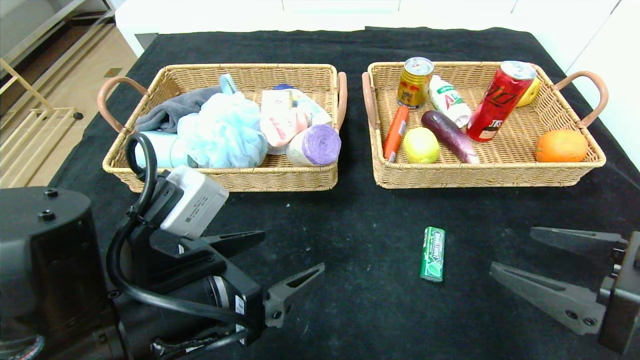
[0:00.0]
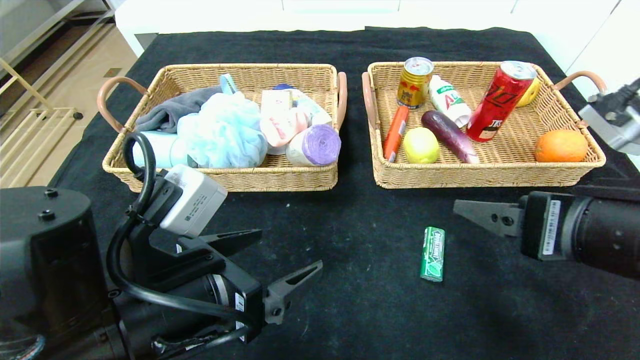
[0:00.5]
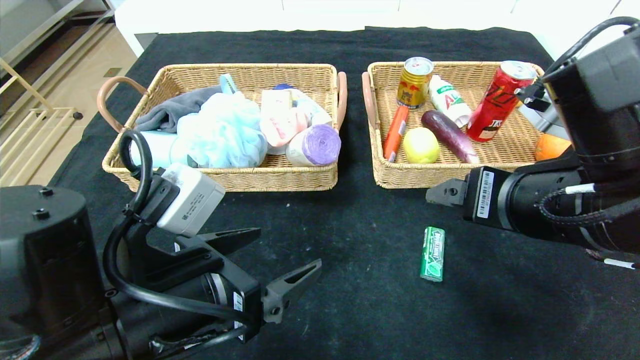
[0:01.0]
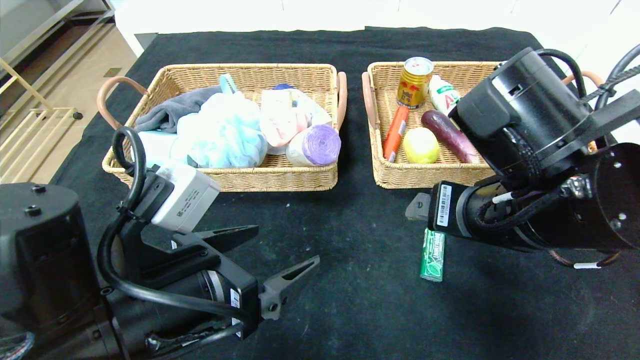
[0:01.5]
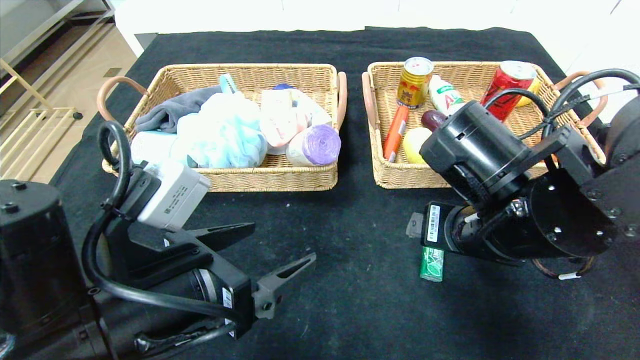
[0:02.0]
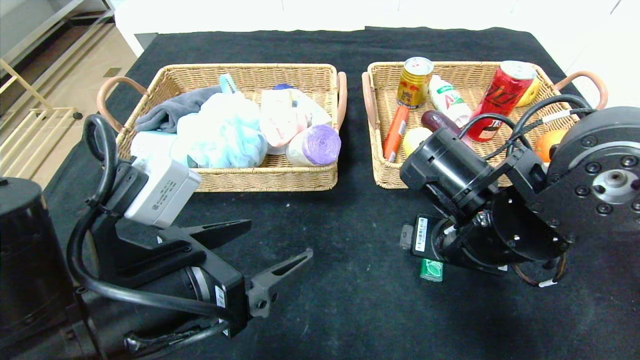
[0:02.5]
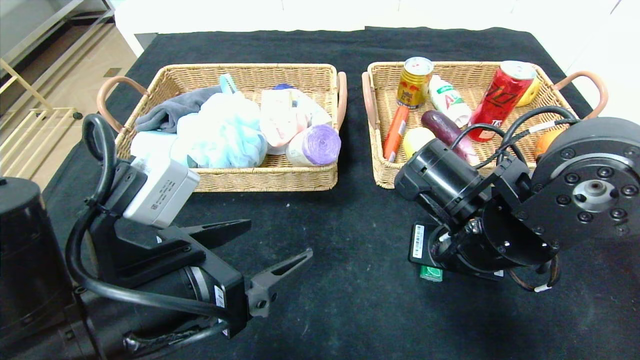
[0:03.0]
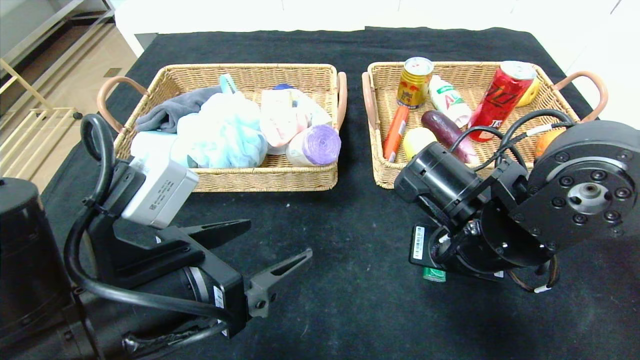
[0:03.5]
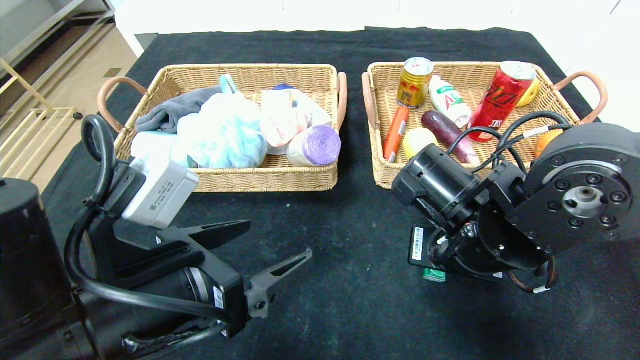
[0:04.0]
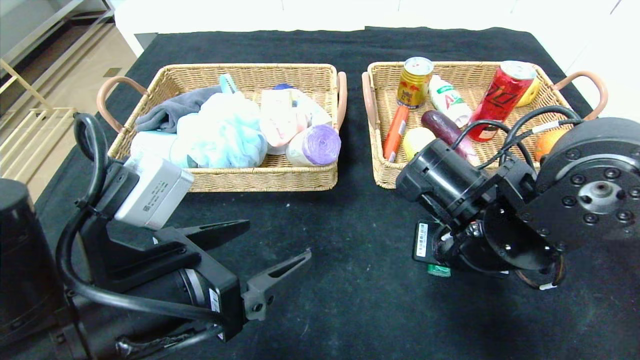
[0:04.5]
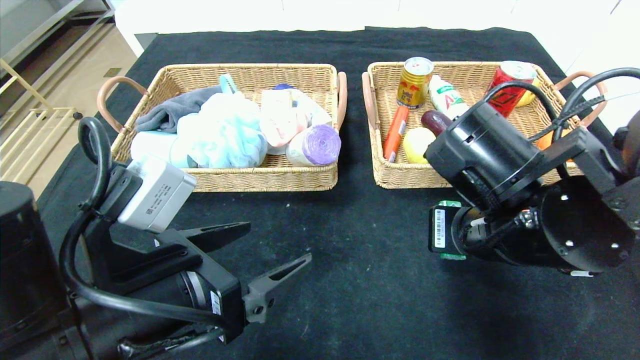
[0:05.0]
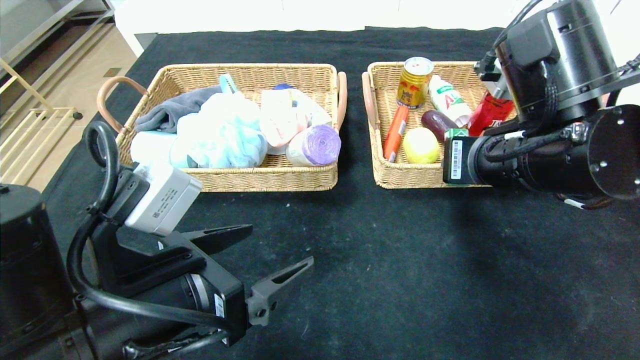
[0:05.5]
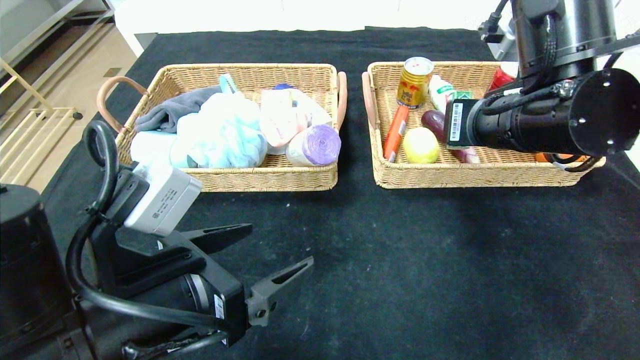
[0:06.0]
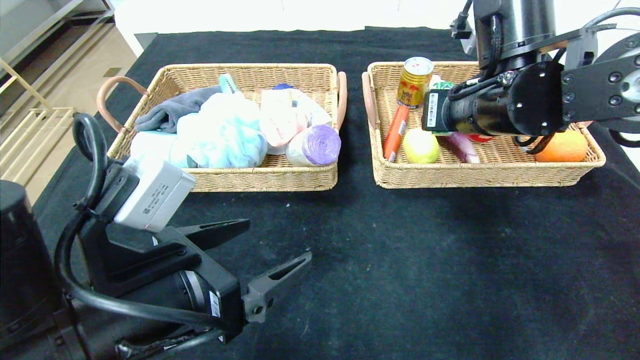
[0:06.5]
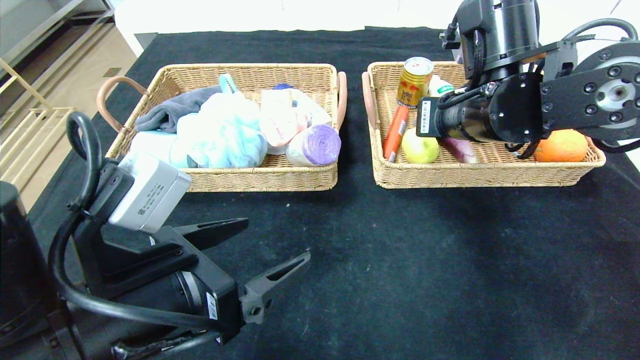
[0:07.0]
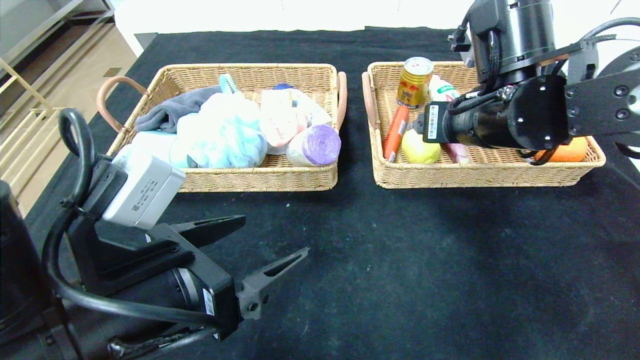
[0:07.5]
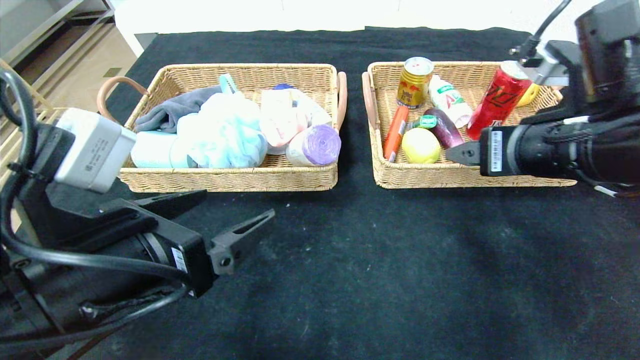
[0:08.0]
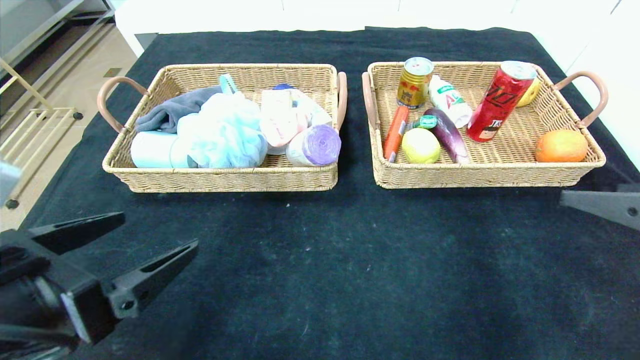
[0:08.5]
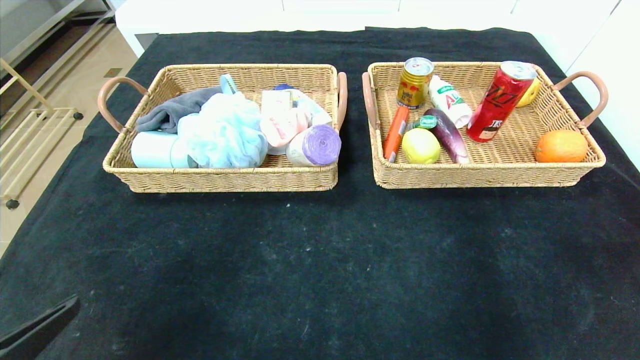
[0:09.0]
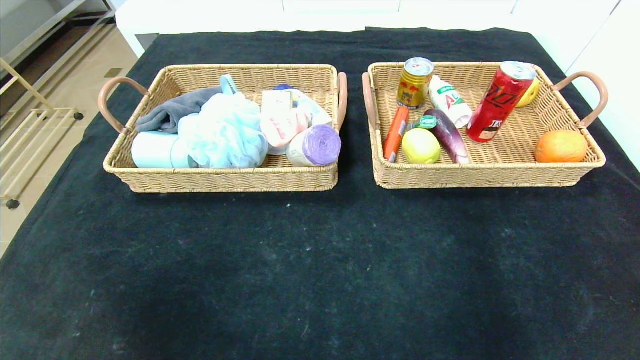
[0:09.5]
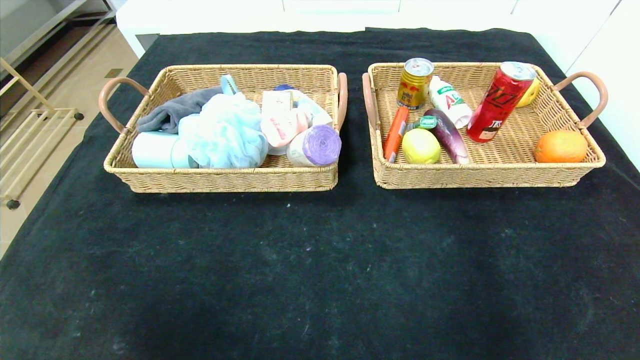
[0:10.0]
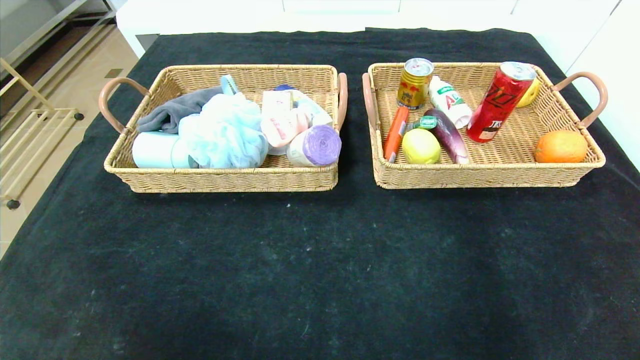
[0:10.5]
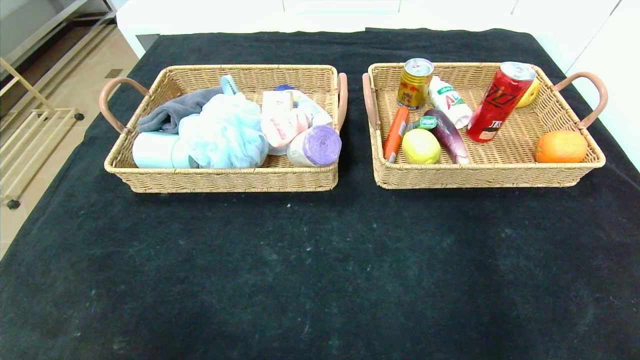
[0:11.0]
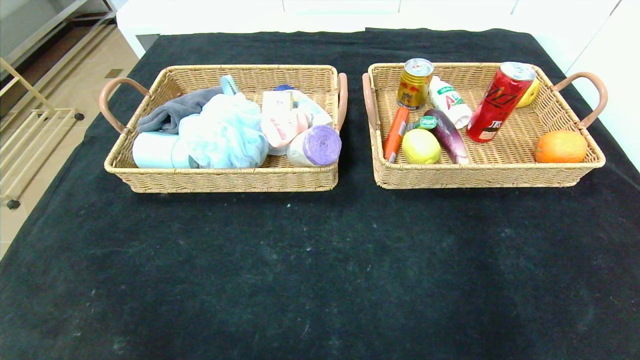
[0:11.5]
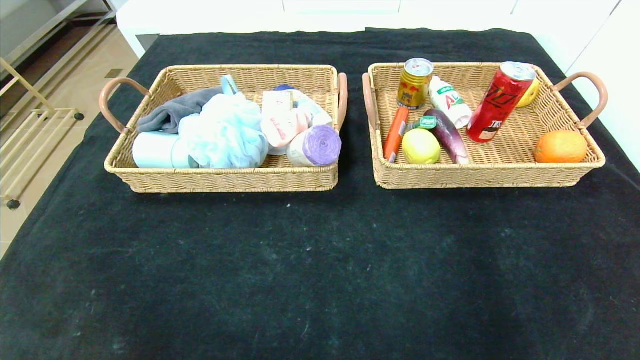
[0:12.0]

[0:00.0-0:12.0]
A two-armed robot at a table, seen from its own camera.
Step, 0:00.0 to 0:07.0: Grasp the green chewing gum and put it in the right basket.
0:00.0 to 0:02.0: The right gripper moves to the left and forward, approximately 15 cm.
0:02.0 to 0:04.0: The right gripper closes up.
0:04.0 to 0:06.0: The right gripper shifts some 10 cm upward.
0:06.0 to 0:08.0: The right gripper changes place by roughly 5 cm, and opens.
0:08.0 to 0:10.0: The left gripper heads backward and to the left, covering some 25 cm; the right gripper is displaced backward, to the right and downward by some 35 cm.

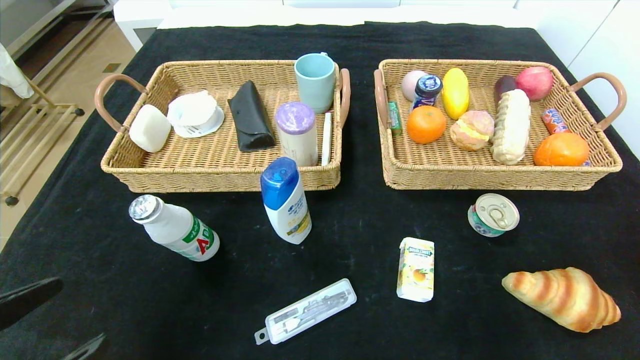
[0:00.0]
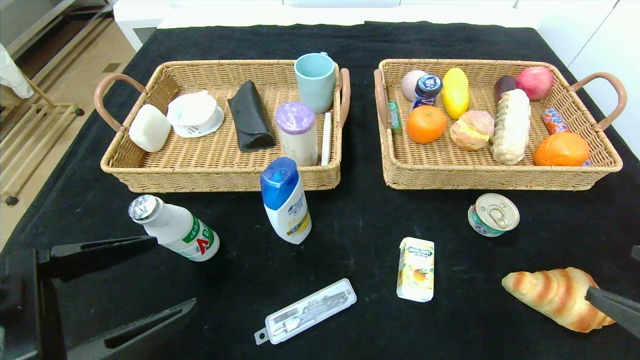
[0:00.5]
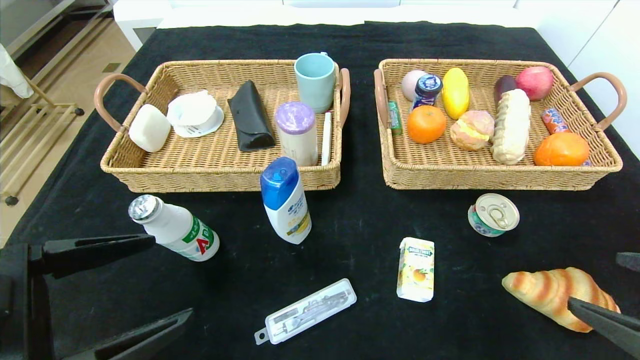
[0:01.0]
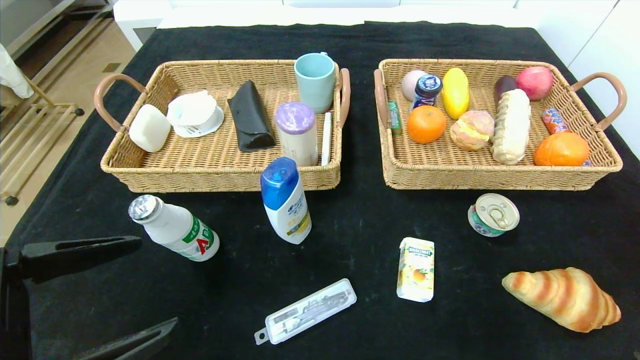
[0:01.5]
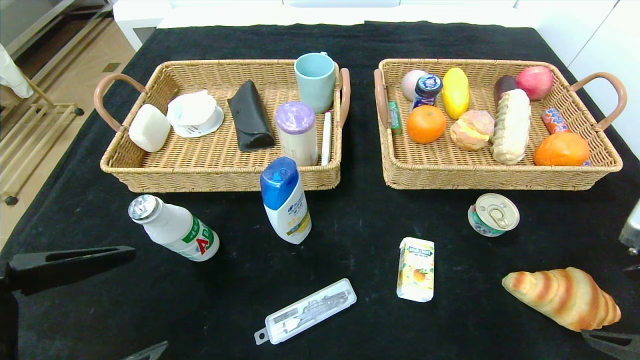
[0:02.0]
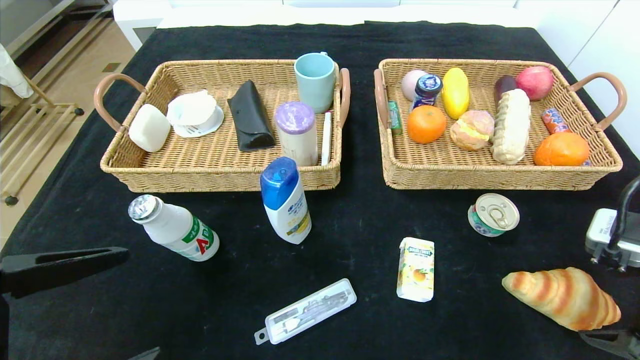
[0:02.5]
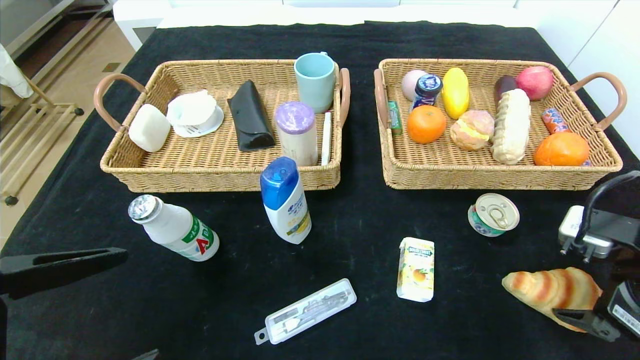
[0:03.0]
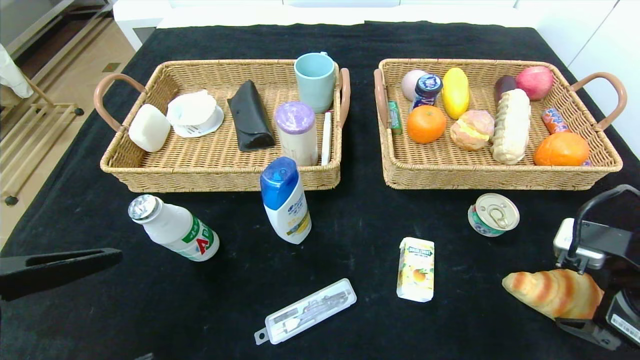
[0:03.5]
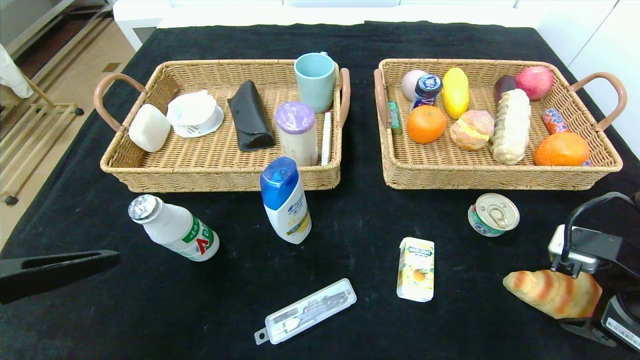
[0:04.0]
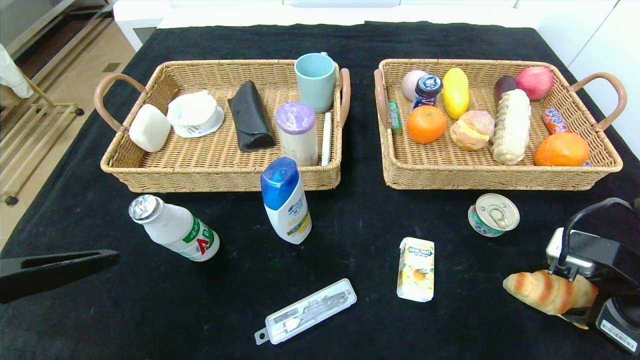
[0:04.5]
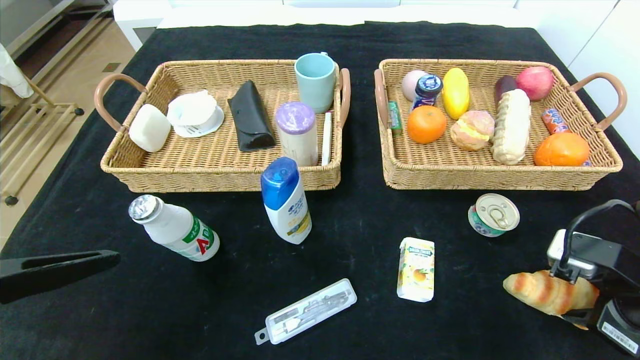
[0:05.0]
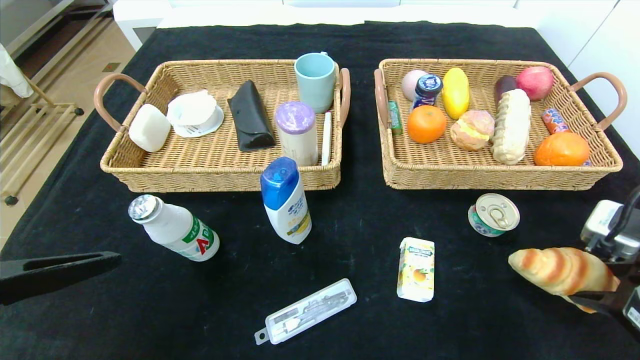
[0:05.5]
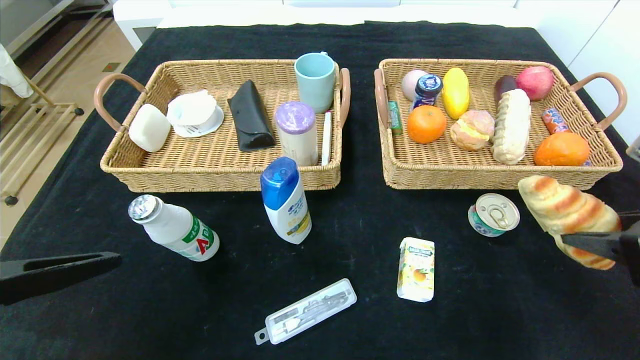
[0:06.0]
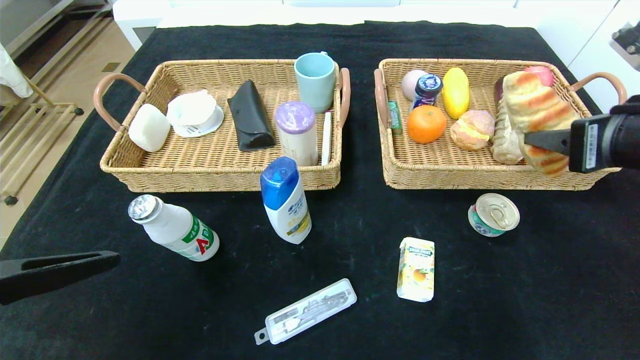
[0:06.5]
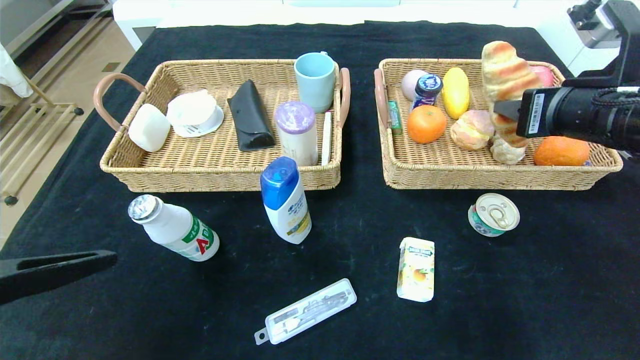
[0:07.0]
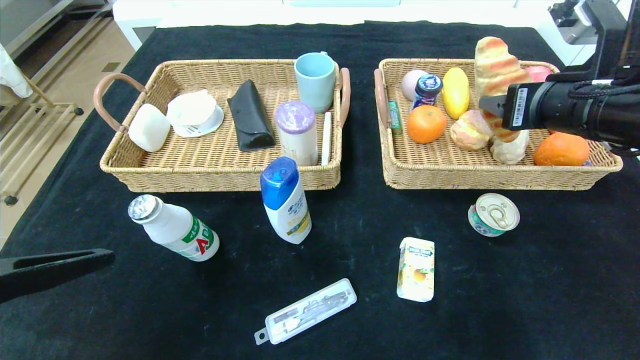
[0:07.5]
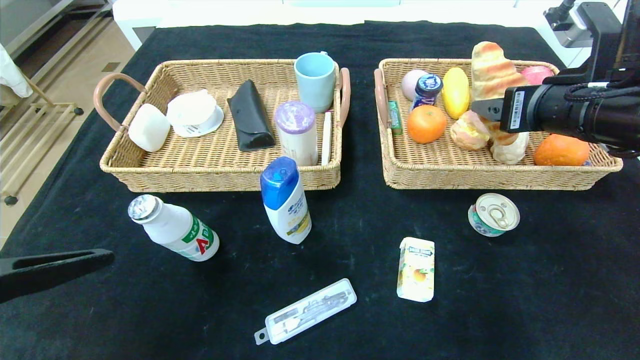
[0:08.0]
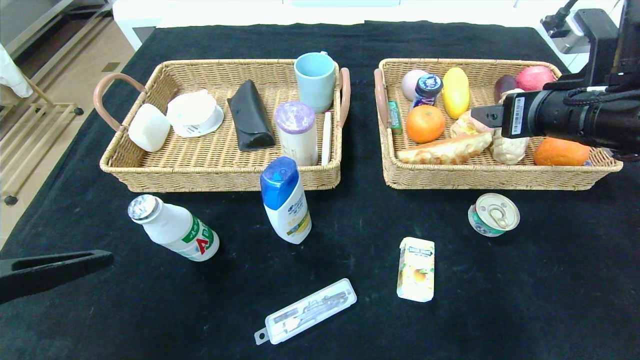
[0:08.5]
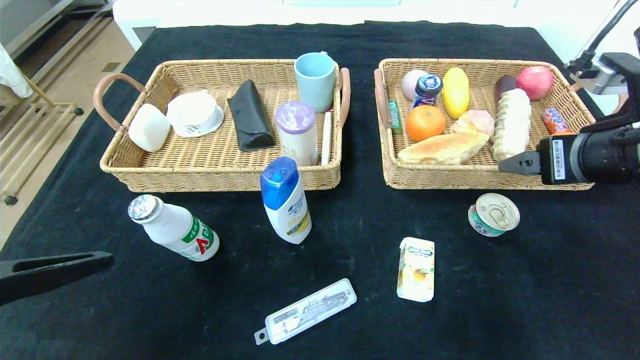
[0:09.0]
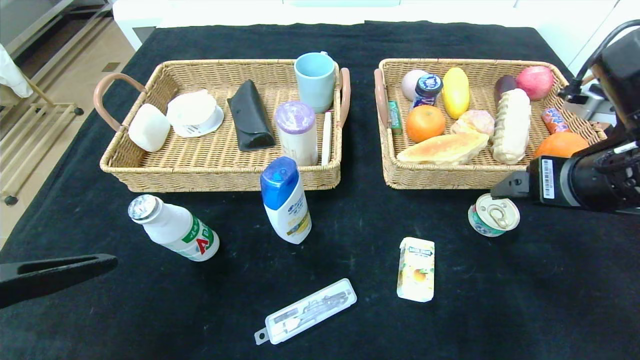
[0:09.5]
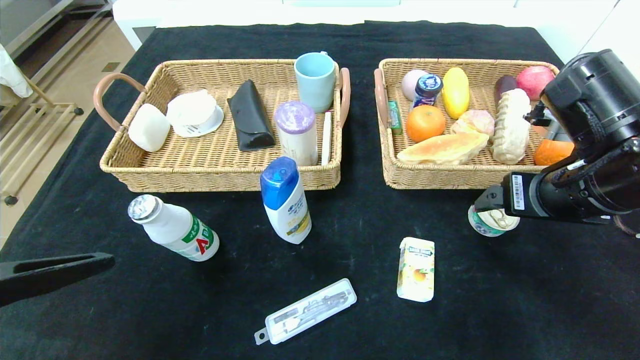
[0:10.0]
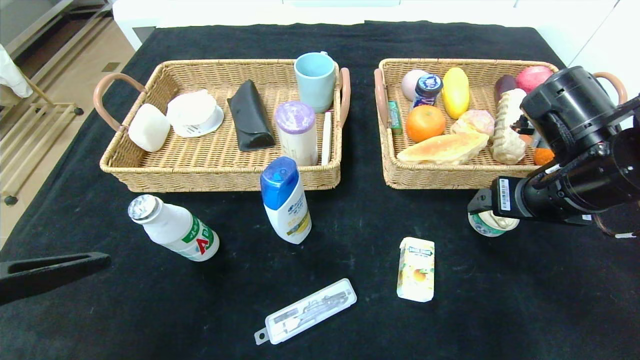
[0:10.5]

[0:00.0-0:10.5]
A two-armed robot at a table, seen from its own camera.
Step, 0:00.0 to 0:08.0: Grasp the croissant and put it in the right basket.
0:00.0 to 0:02.0: The left gripper shifts by some 5 cm. Meanwhile the right gripper is displaced forward by approximately 5 cm.
0:02.0 to 0:04.0: The right gripper travels forward and downward by about 10 cm, and closes up.
0:04.0 to 0:06.5: The right gripper is displaced upward by approximately 10 cm, and closes its fingers.
0:06.5 to 0:08.5: The right gripper goes roughly 5 cm forward, and opens its fingers.
0:08.5 to 0:10.5: The right gripper shifts about 5 cm downward.
